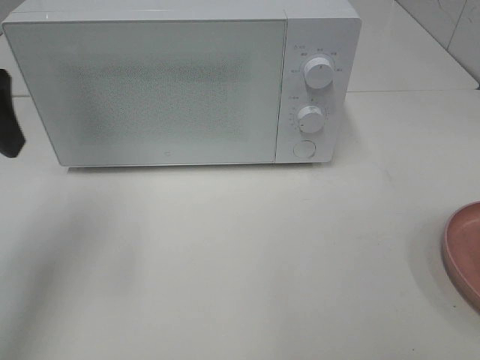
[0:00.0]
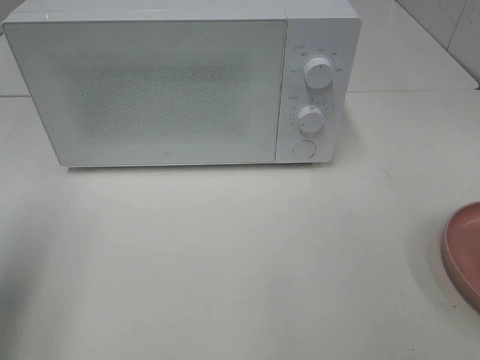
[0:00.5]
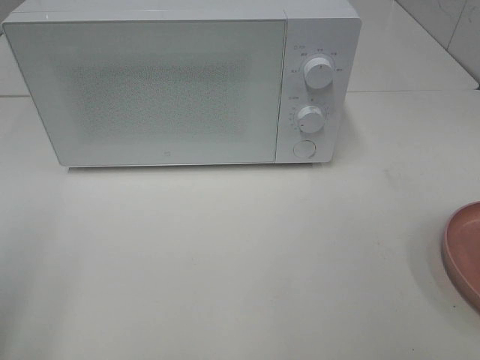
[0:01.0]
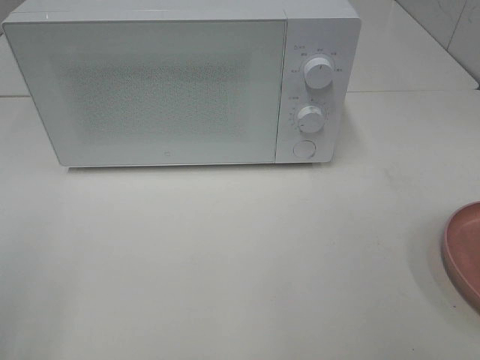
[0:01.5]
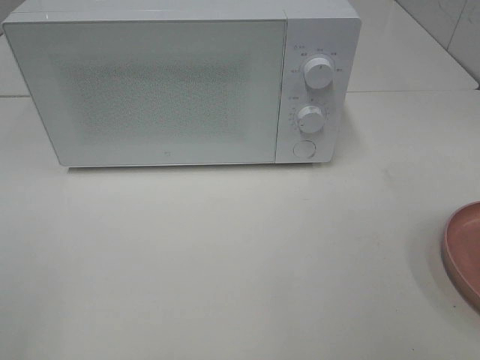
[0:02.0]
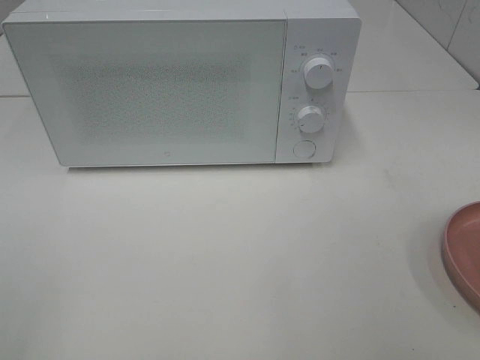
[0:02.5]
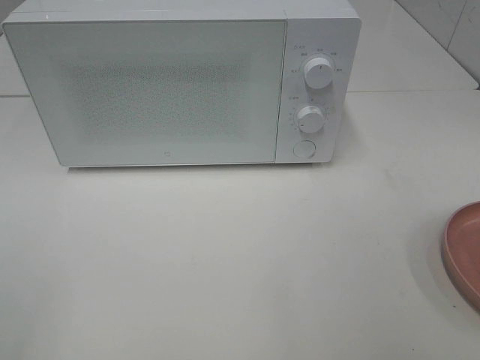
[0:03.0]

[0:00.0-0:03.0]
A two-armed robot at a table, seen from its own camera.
Task of the whole recording: Heat the burger.
0:00.0 to 0:01.5: The left gripper heads backward, covering some 20 cm.

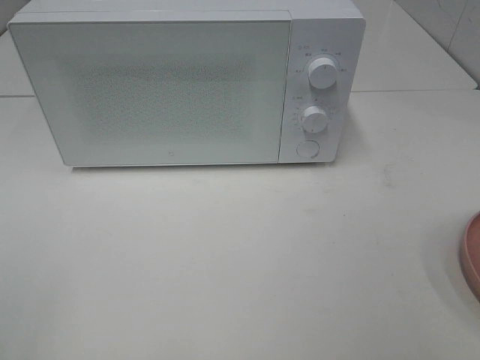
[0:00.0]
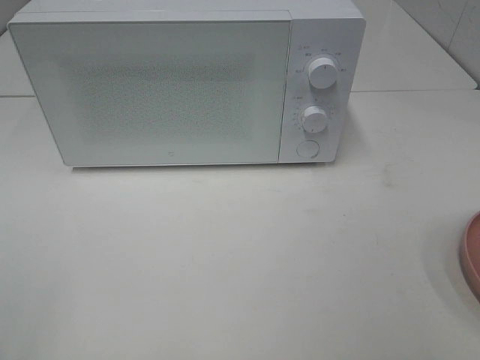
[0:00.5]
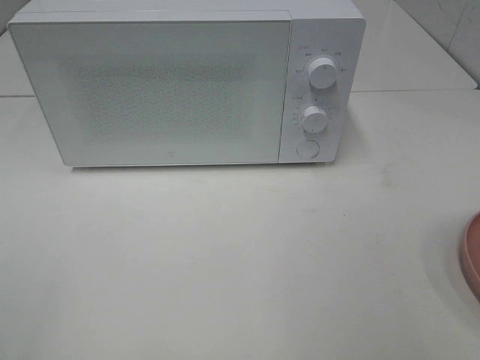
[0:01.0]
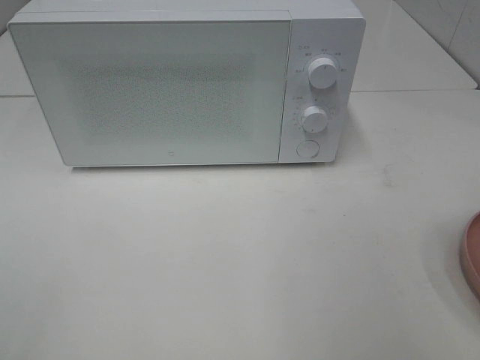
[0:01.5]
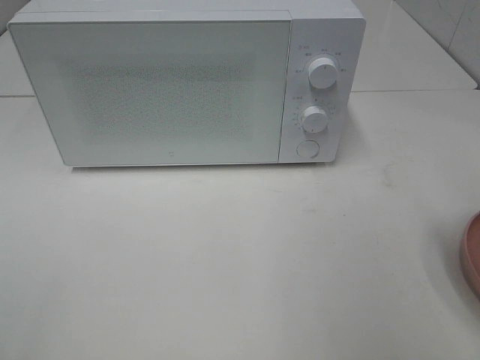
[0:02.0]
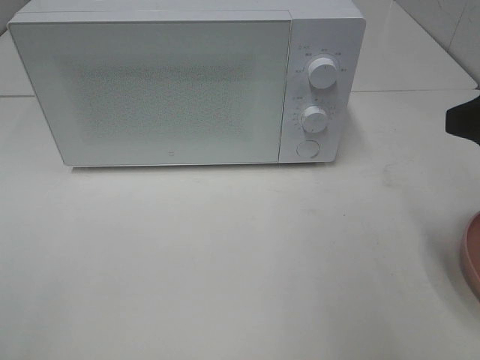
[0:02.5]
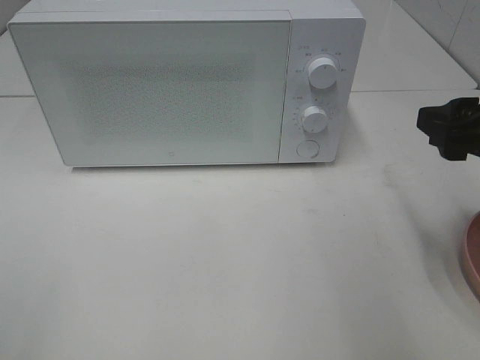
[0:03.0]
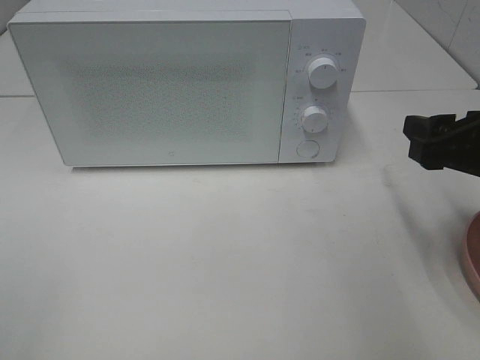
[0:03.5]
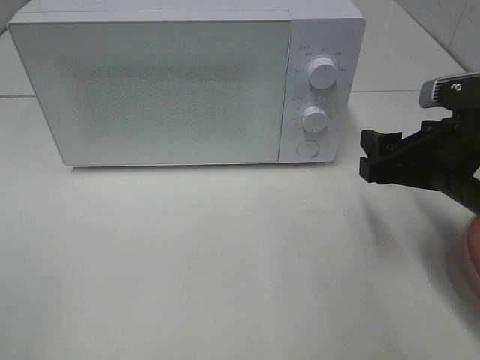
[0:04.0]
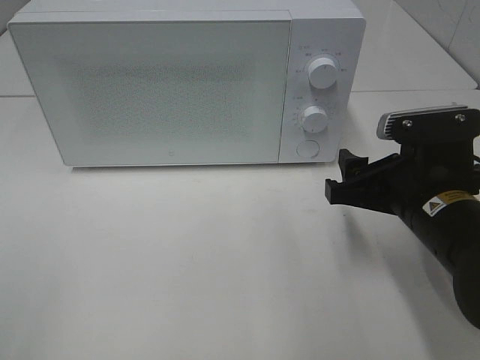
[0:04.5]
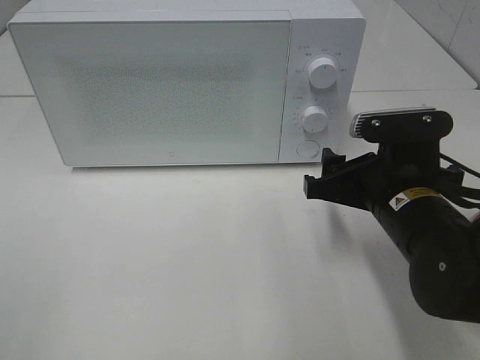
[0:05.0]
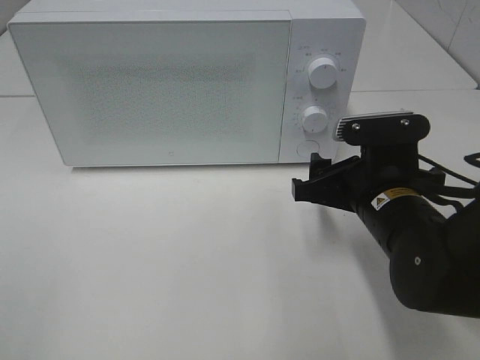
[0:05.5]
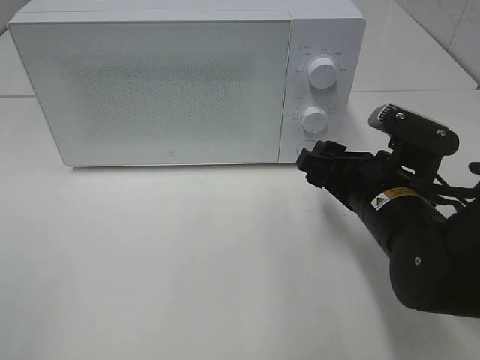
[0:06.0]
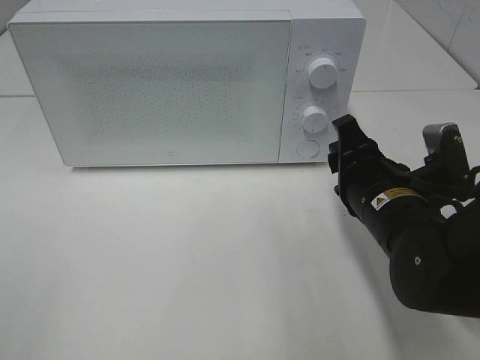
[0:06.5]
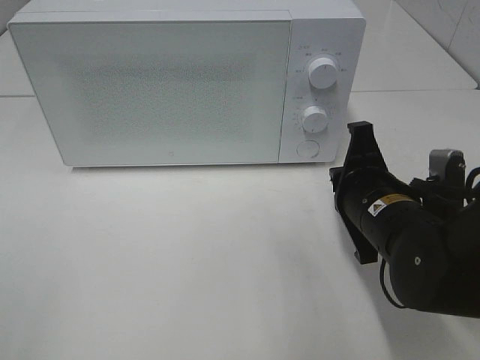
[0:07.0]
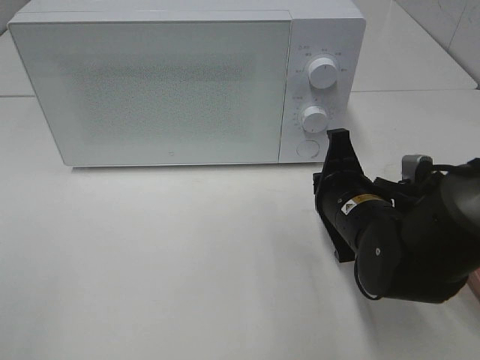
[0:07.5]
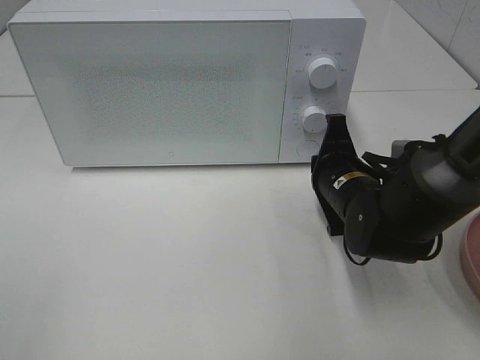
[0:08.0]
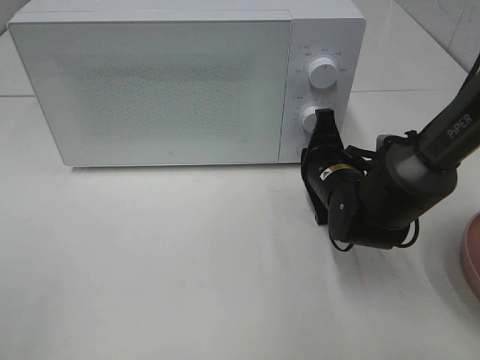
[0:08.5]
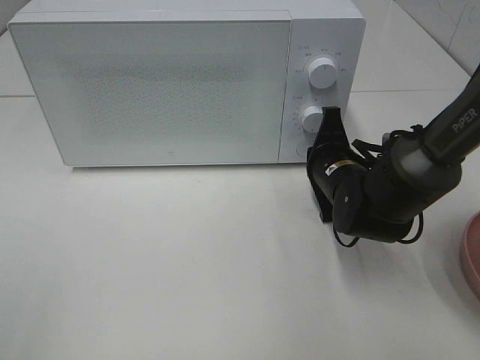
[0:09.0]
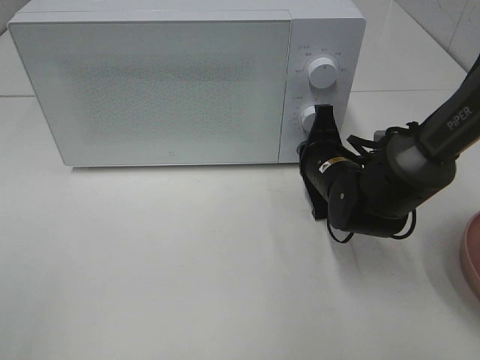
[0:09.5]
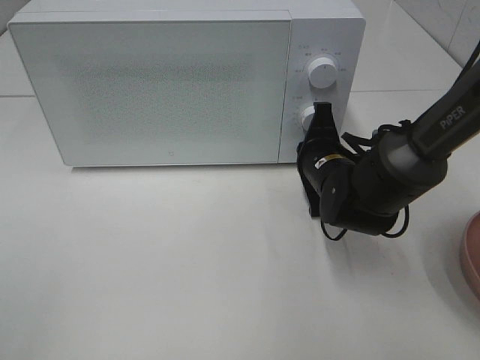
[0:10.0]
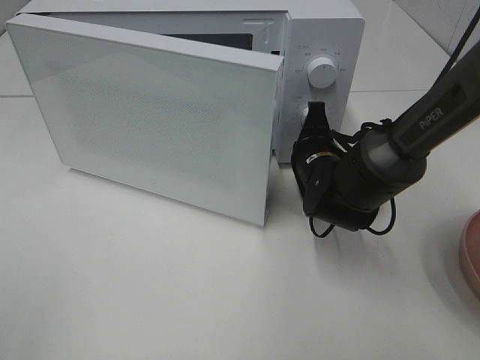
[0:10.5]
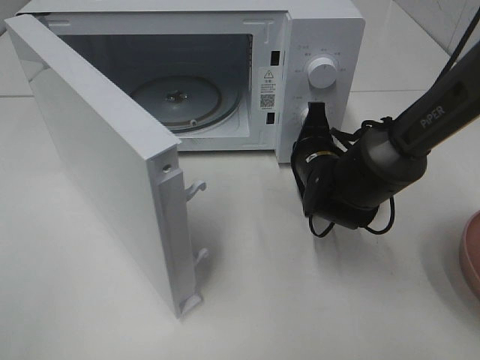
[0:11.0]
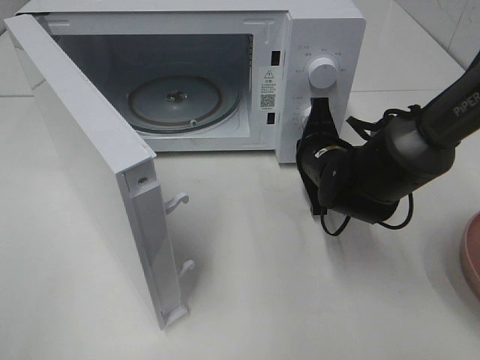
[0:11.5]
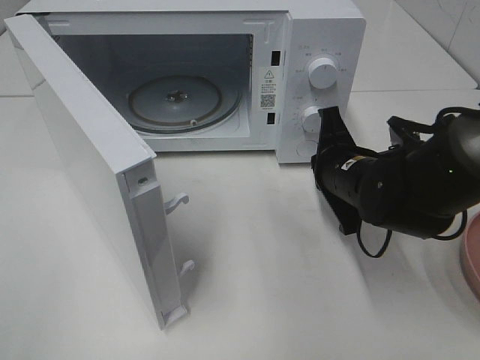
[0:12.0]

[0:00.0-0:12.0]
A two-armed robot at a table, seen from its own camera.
Task of the whole recording: Heat the burger.
Step, 0:00.0 to 0:11.5: Right hand: press the switch.
0:02.0 to 0:04.0: The right gripper goes roughly 15 cm downward and forward.
0:04.0 to 0:06.0: The right gripper heads to the left, covering roughly 5 cm.
0:06.0 to 0:08.0: The right gripper is displaced forward by roughly 5 cm, and closes its fingers.
0:08.0 to 0:10.0: The grippers stay close to where they were, moving slightly.
0:10.0 to 0:12.0: The right gripper ends up about 5 cm from where it was.

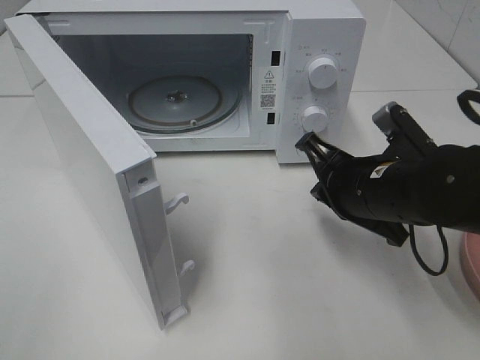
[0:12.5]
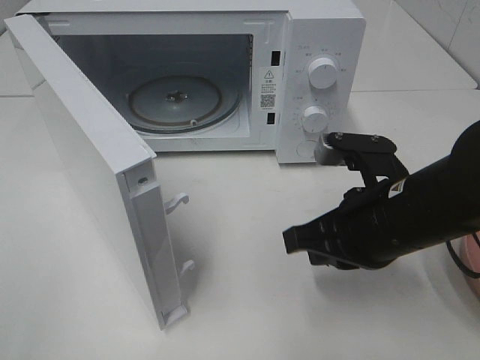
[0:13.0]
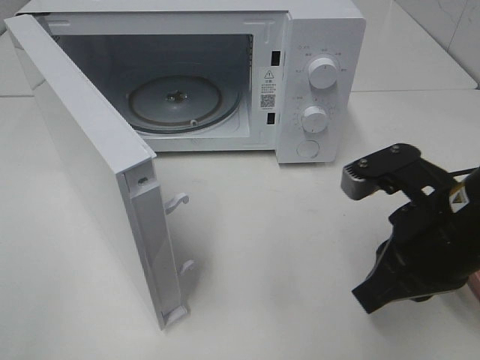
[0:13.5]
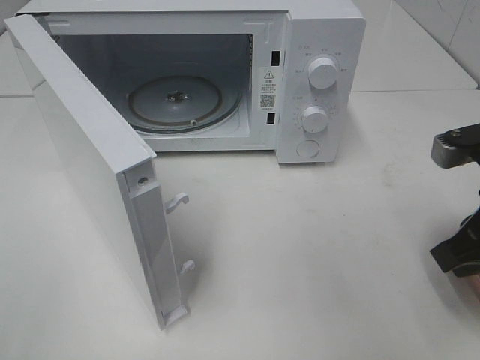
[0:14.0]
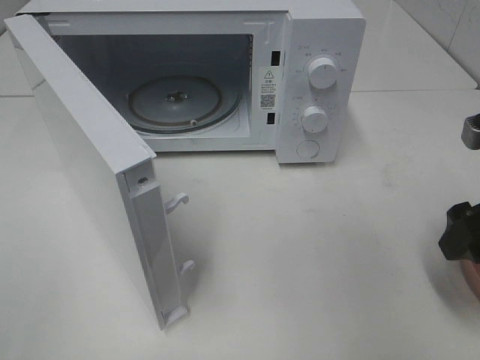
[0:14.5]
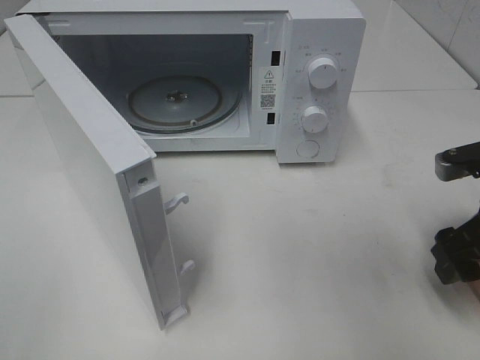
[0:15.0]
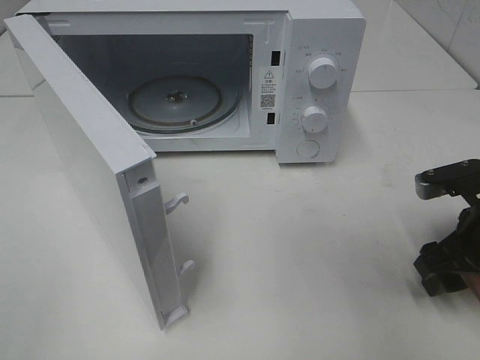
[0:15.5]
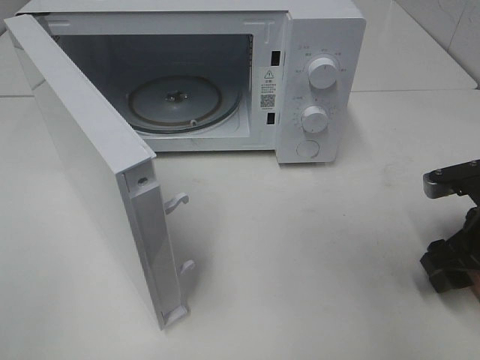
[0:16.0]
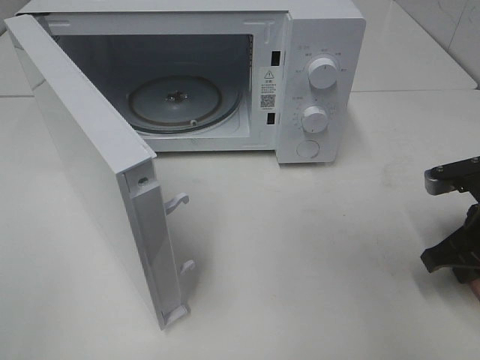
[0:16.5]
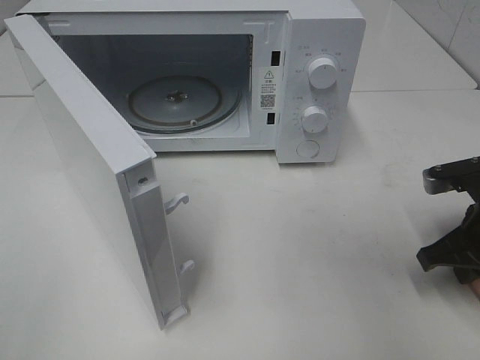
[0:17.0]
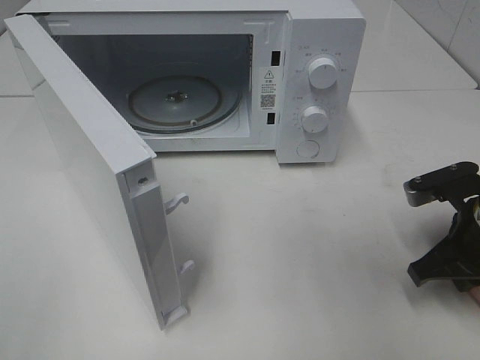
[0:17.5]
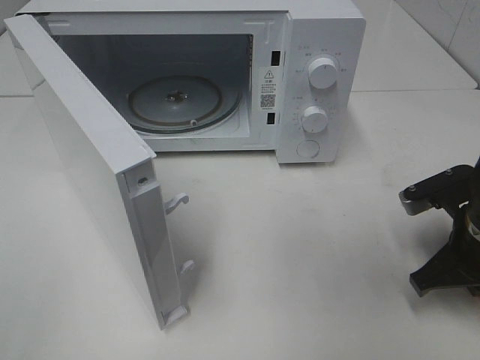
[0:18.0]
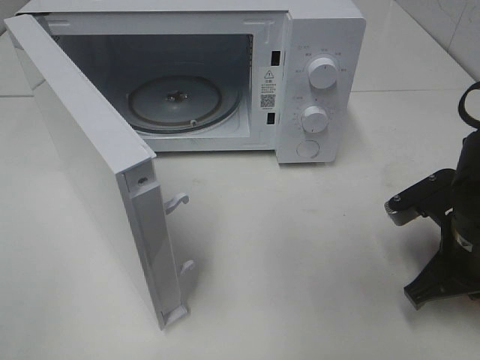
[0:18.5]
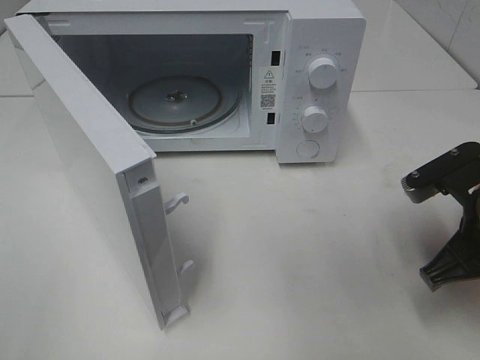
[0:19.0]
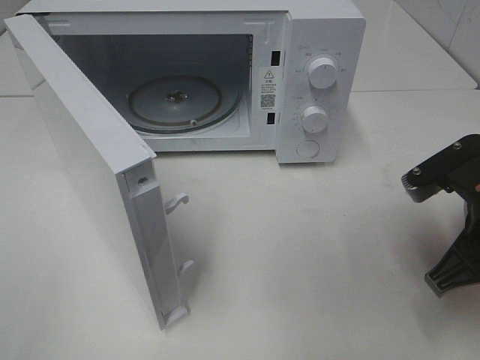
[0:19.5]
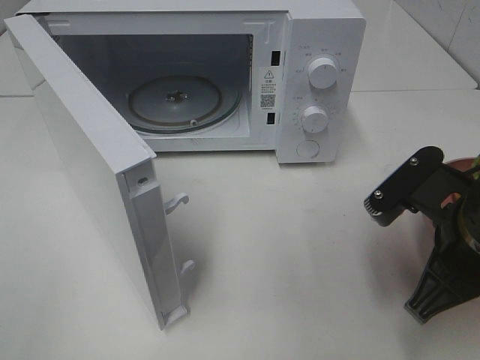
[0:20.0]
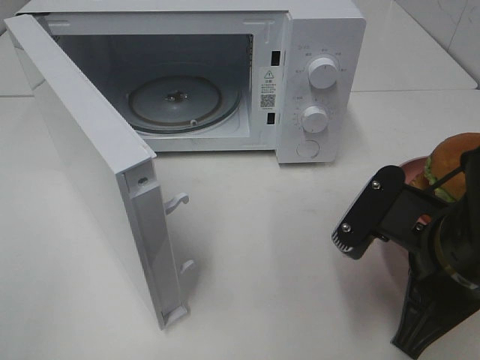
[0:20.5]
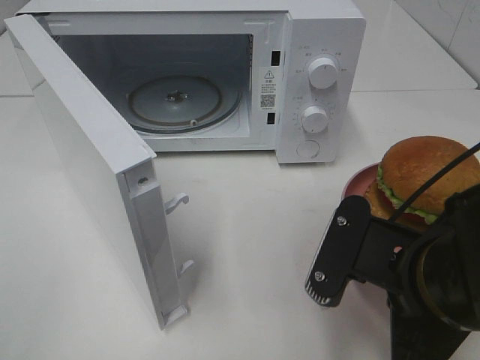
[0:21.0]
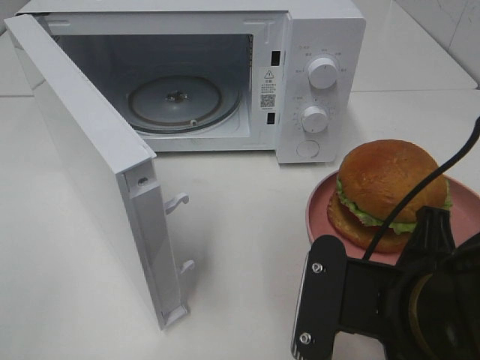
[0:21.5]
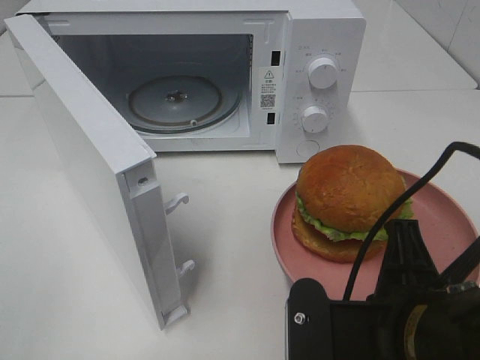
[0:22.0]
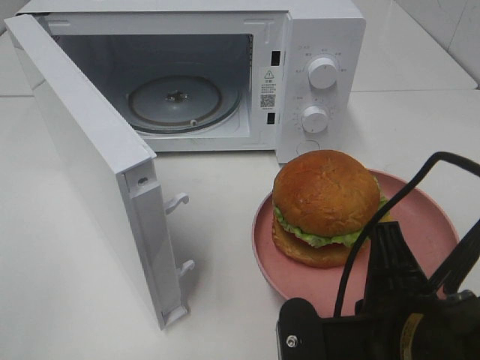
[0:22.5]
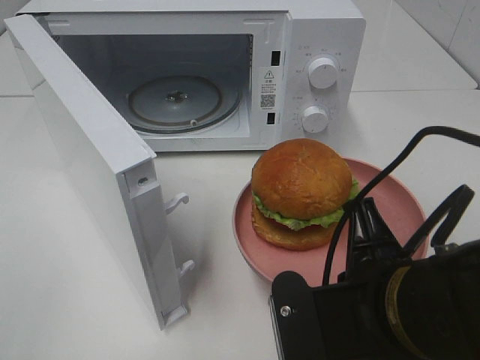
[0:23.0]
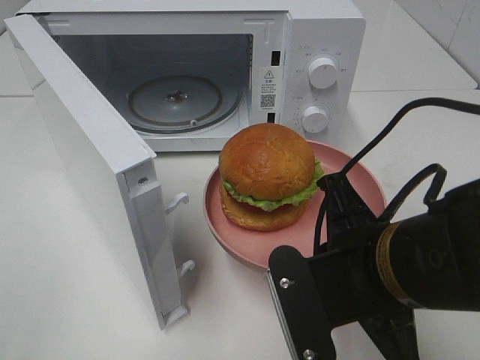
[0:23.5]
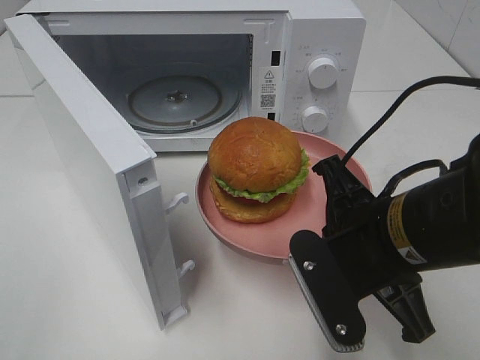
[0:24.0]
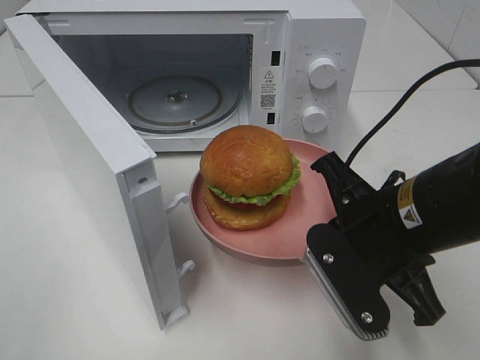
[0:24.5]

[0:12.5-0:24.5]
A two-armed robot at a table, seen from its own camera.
Task of the whole recording: Heat the burger.
Step, 0:12.5 to 0:17.0: Right hand: grab the plate with the hamburger.
0:12.5 to 0:14.5: The right gripper travels to the right, upward and backward by some 15 cm, and opens.
0:14.5 to 0:16.5: The right gripper heads downward, covering about 10 cm, and closes its fingers.
0:16.5 to 0:18.5: The right gripper goes roughly 5 cm to the left.
0:18.5 to 0:20.5: The right gripper shifts about 10 cm to the left, backward and upward.
0:20.5 to 0:22.5: The right gripper goes some 10 cm backward and to the left.
0:22.5 to 0:24.5: The right gripper shifts about 10 cm forward.
